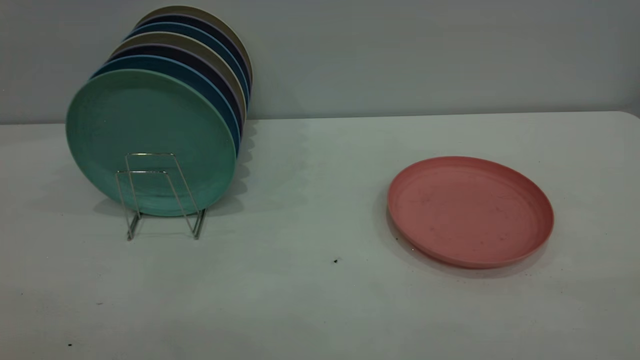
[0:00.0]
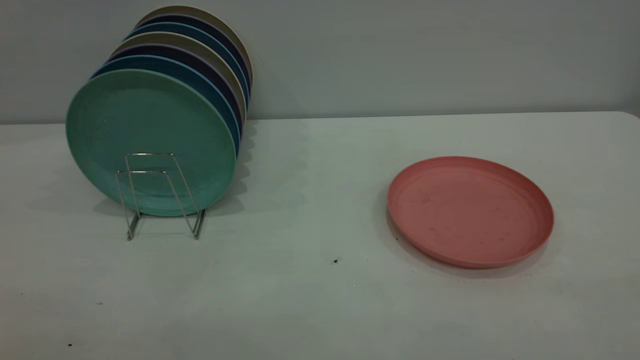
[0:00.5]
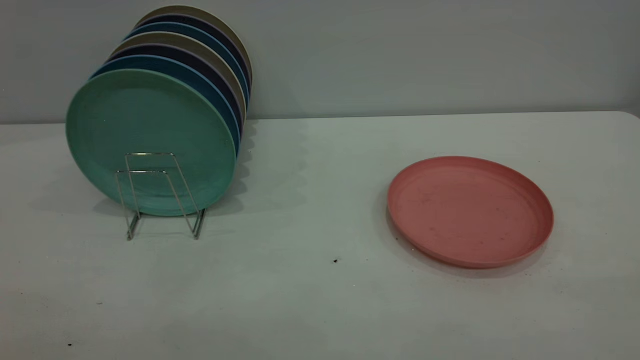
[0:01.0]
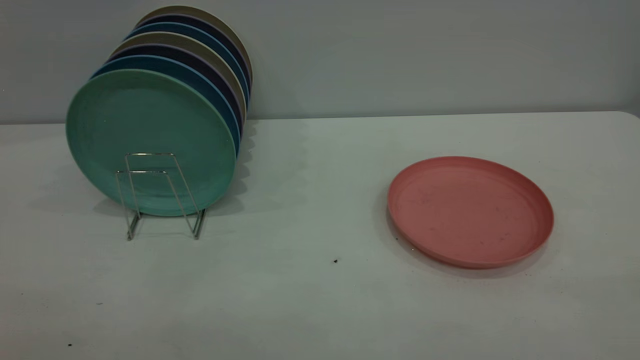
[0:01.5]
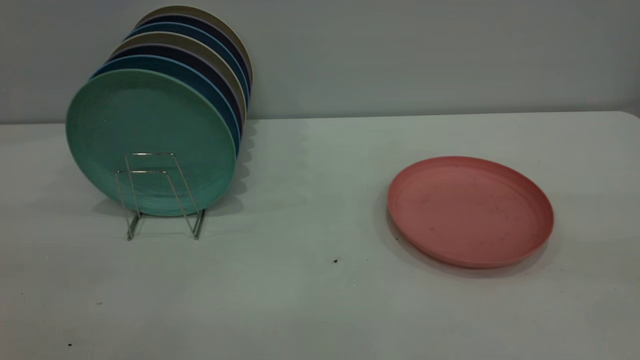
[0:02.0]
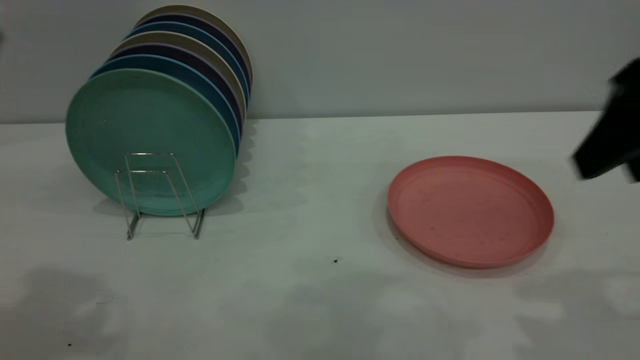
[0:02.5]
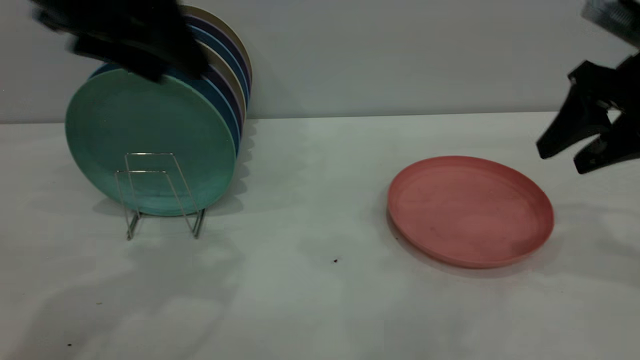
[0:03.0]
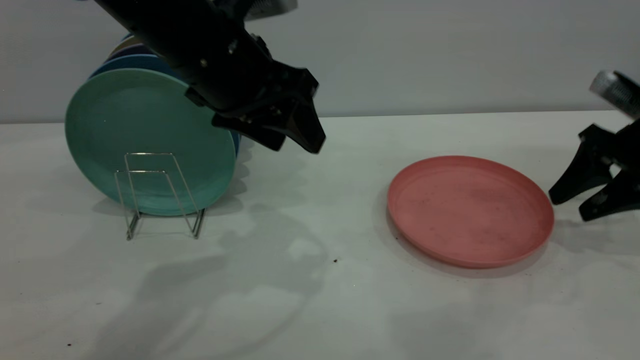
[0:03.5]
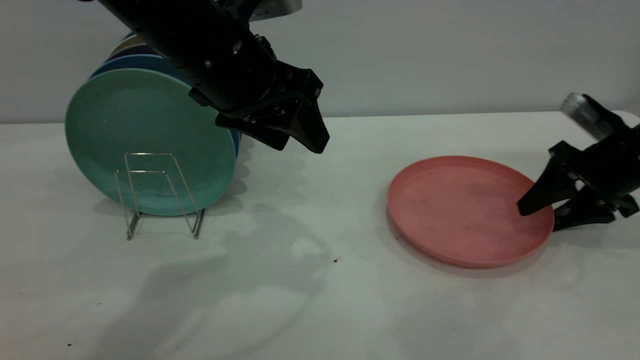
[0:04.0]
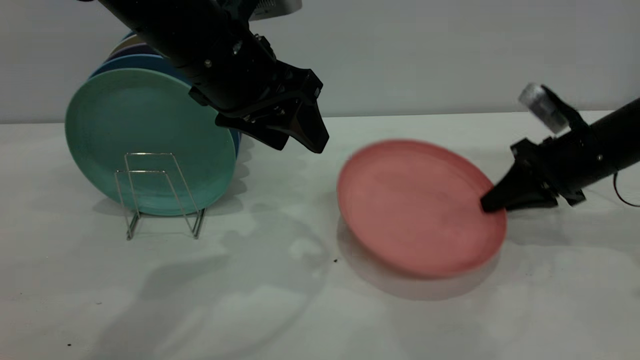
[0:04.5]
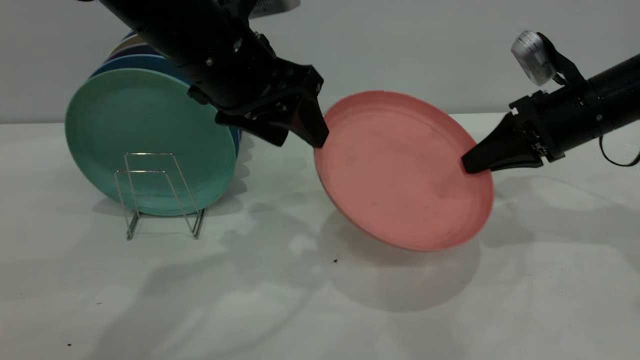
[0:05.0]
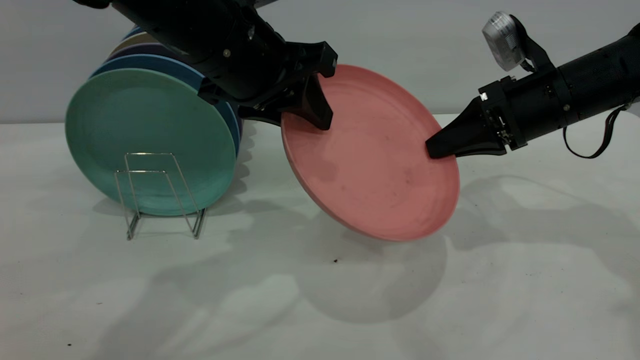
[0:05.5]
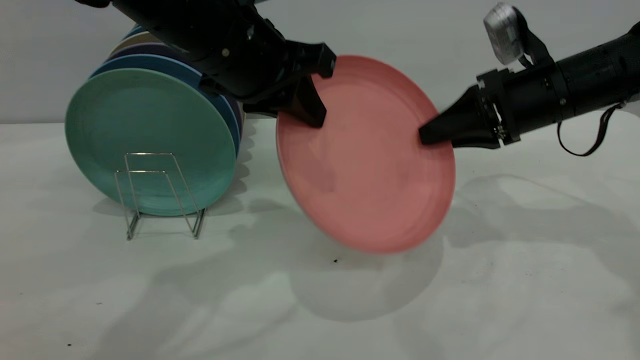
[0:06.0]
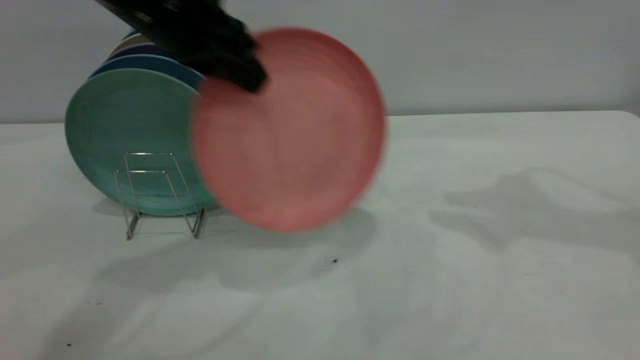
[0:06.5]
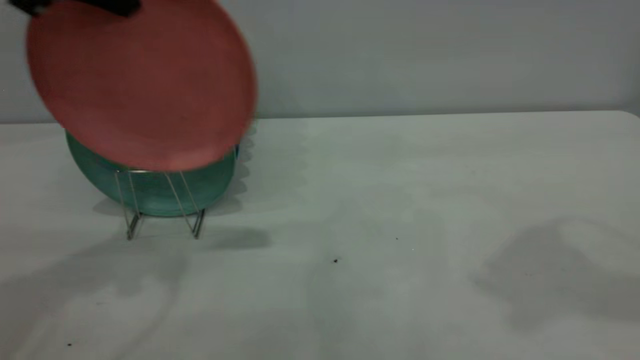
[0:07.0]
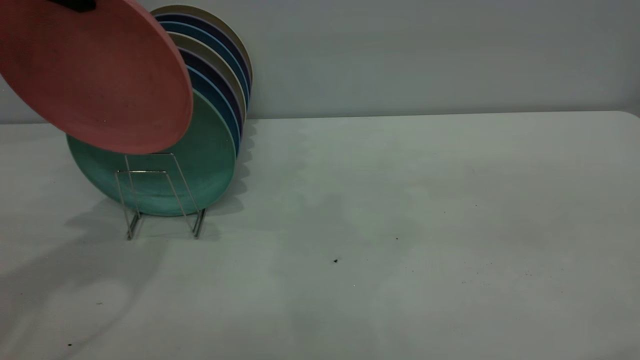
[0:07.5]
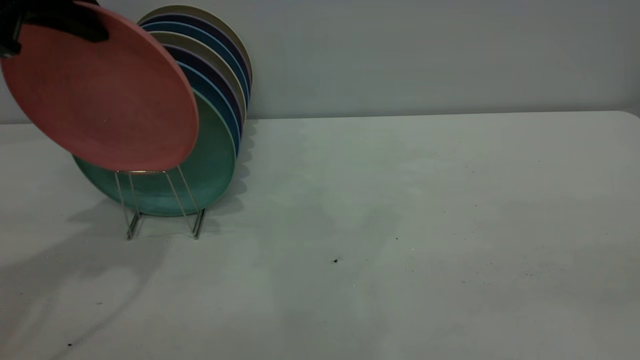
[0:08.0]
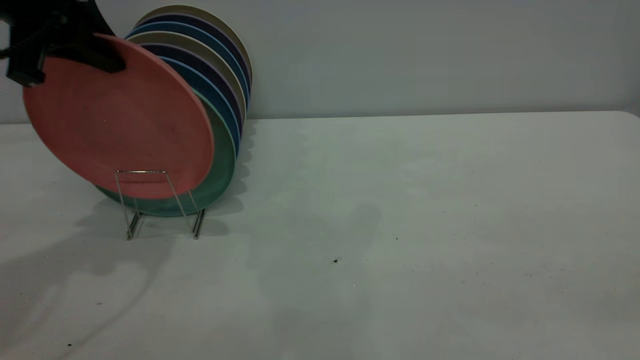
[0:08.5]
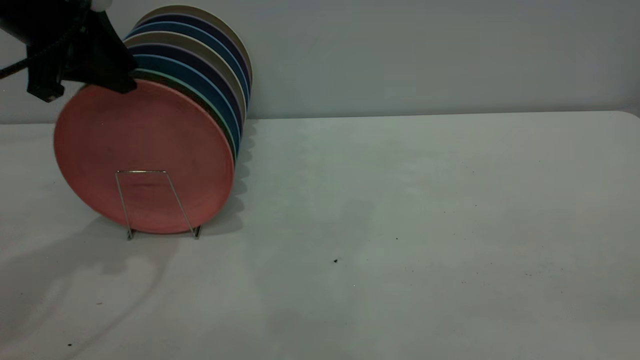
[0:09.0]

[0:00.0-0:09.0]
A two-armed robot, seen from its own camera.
Task of the whole recording: the right gripper grasp the pink plate, the right gripper pass the pink plate to the left gripper, and the left gripper place the pink plate on the plate rack.
Step, 0:00.0 to 0:04.5: Pick up the plate with the right gripper.
Step, 0:05.0 to 0:06.0: Pass the plate from the right gripper to the left gripper.
0:02.0 to 0:04.5: The right gripper is displaced forward and downward by roughly 40 cm, and closes, while the left gripper travels forward, to the right and downward by about 35 cm.
0:04.5 to 0:07.0: The left gripper shifts roughly 20 cm to the left and upward, and closes; the right gripper shifts some 35 cm upward and backward, and opens its fingers.
0:07.0 to 0:09.0: The left gripper travels downward by some 10 cm, and opens its fingers. Meanwhile the right gripper moves backward, roughly 25 cm.

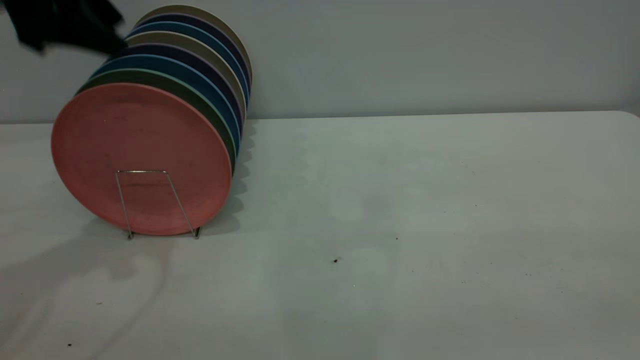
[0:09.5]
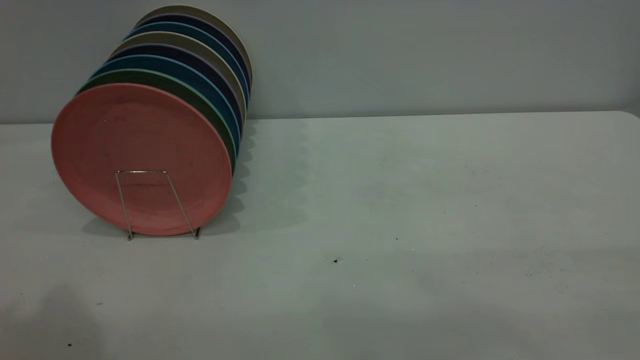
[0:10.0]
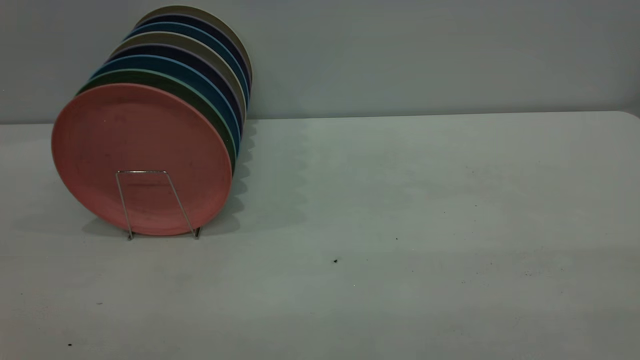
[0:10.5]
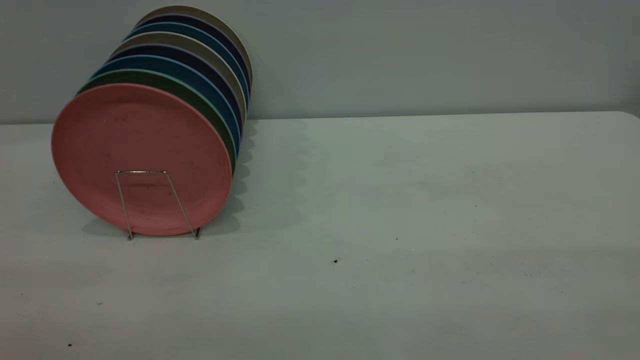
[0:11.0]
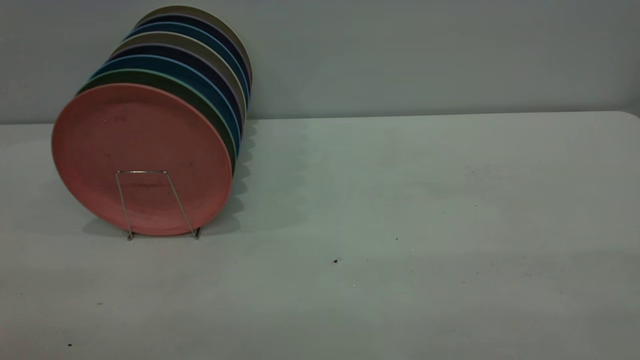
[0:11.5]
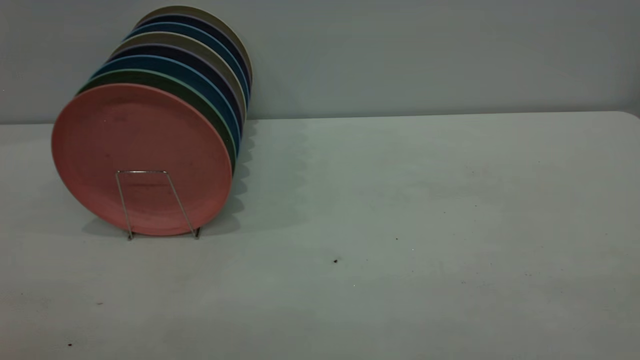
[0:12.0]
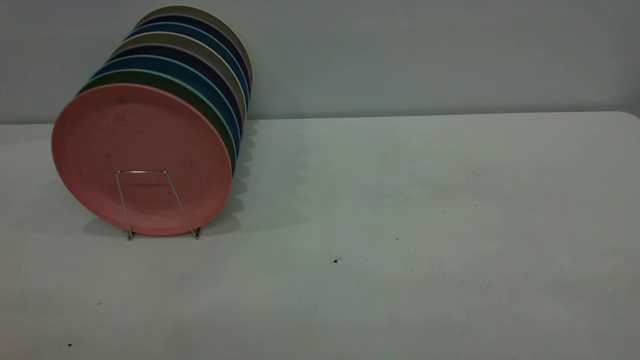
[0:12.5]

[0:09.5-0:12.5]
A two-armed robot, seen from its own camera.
Task of the whole recording: the right gripper grasp the pink plate, the right gripper pass the pink plate to the left gripper, and the left gripper place the pink plate on the plate rack.
0:09.5 to 0:11.0: The left gripper travels backward by approximately 35 cm.
